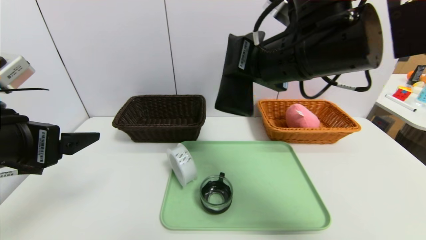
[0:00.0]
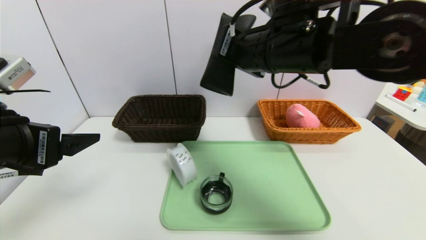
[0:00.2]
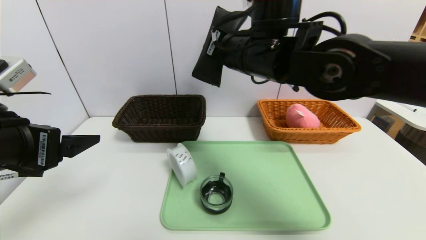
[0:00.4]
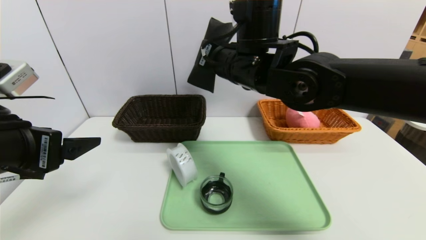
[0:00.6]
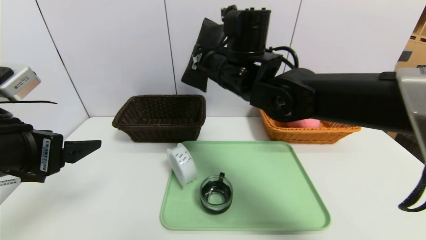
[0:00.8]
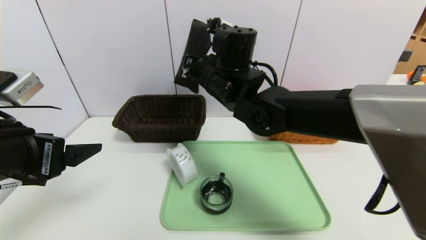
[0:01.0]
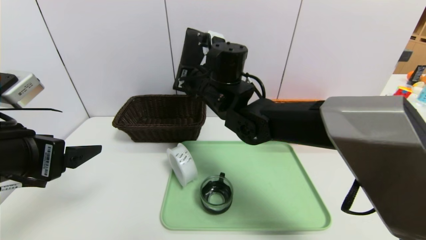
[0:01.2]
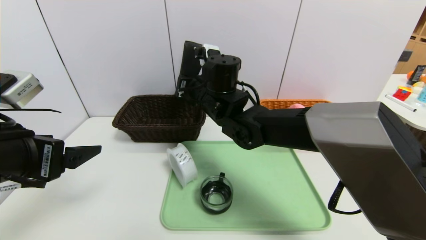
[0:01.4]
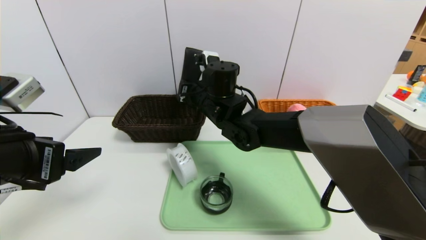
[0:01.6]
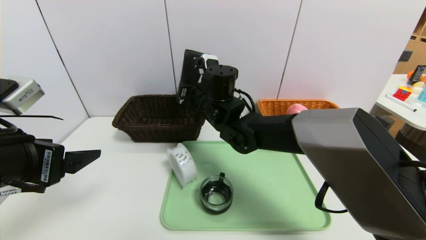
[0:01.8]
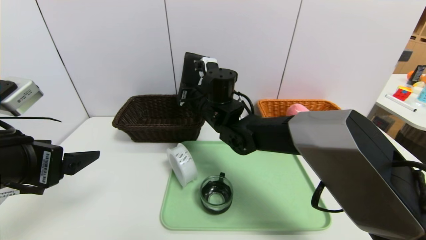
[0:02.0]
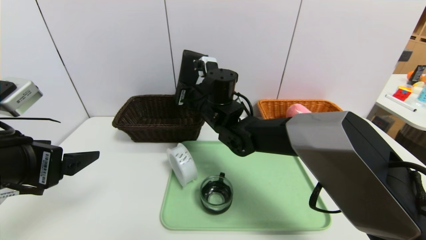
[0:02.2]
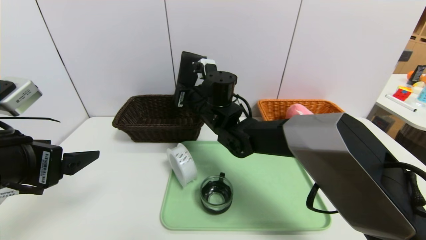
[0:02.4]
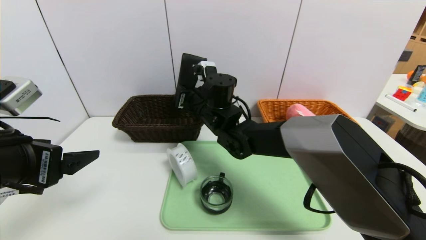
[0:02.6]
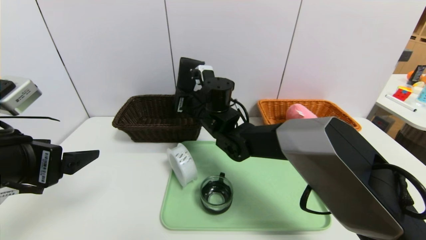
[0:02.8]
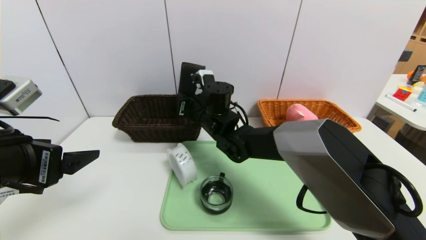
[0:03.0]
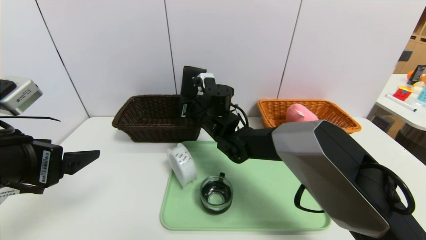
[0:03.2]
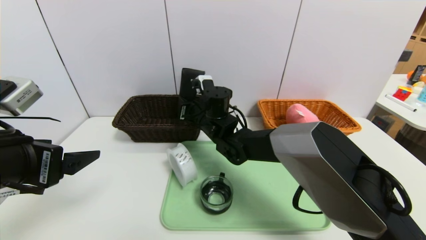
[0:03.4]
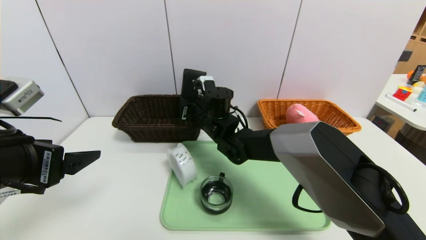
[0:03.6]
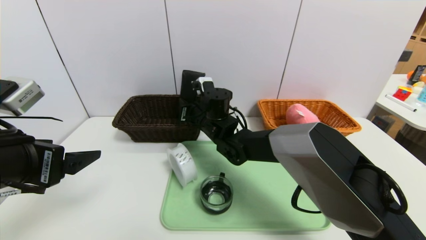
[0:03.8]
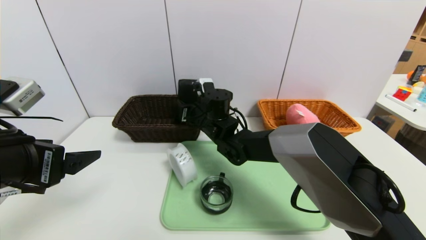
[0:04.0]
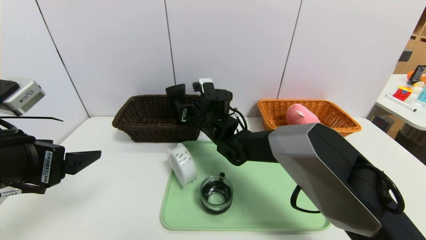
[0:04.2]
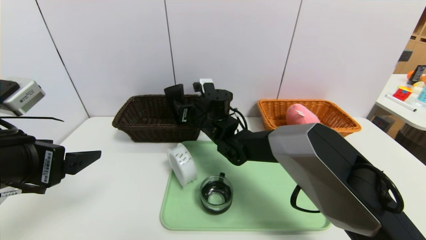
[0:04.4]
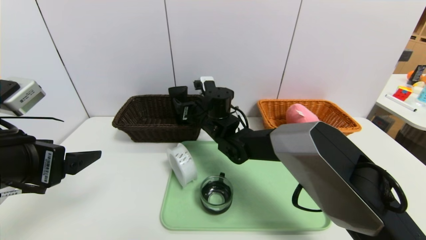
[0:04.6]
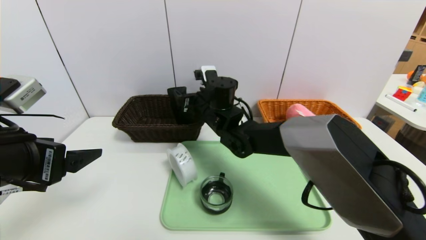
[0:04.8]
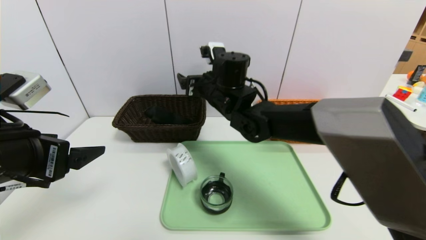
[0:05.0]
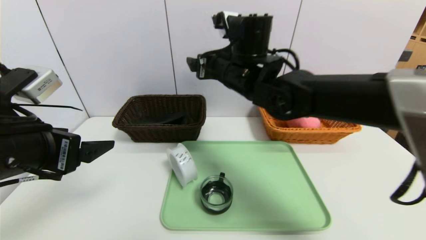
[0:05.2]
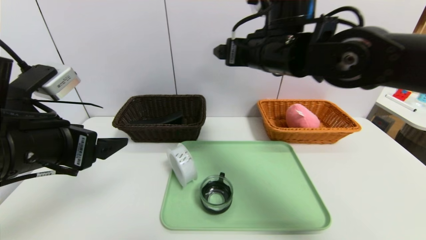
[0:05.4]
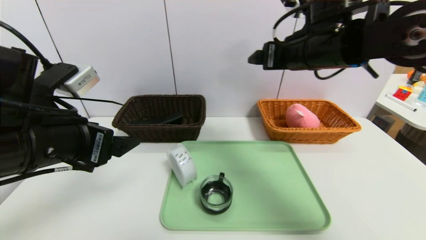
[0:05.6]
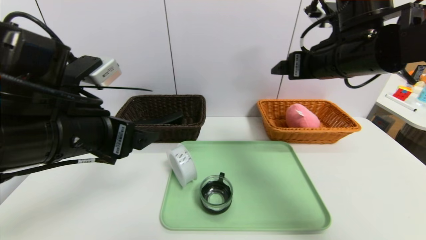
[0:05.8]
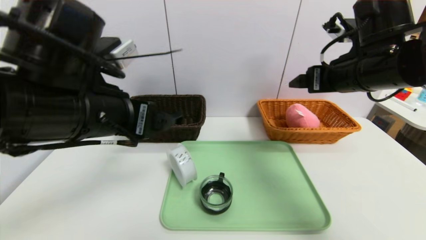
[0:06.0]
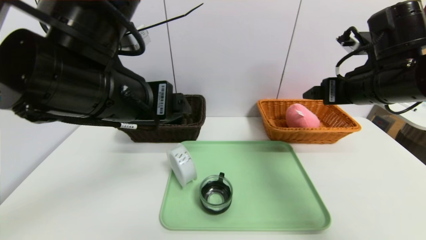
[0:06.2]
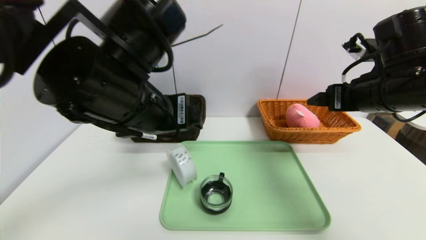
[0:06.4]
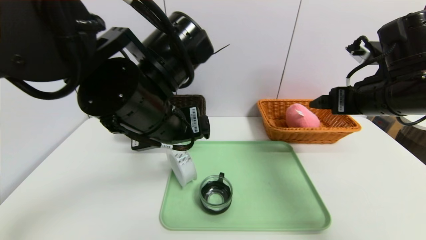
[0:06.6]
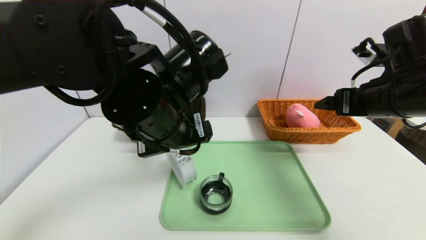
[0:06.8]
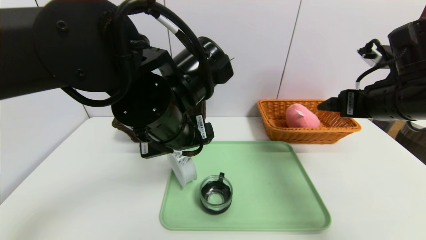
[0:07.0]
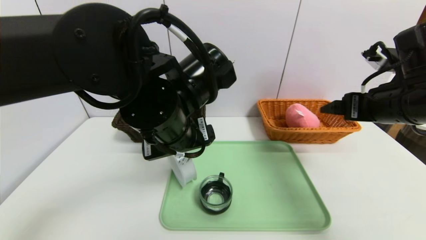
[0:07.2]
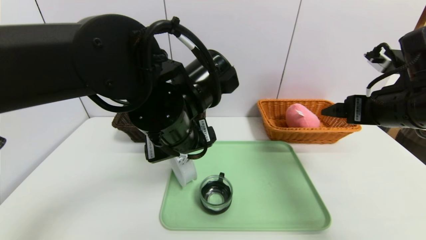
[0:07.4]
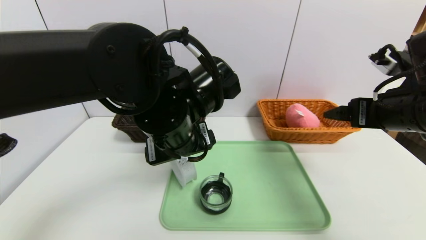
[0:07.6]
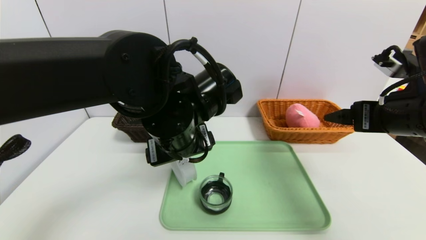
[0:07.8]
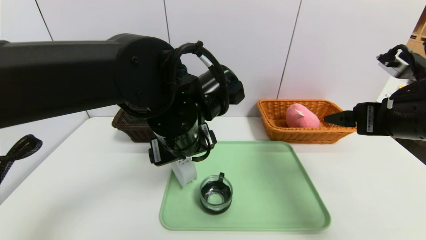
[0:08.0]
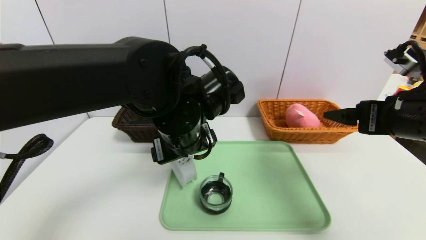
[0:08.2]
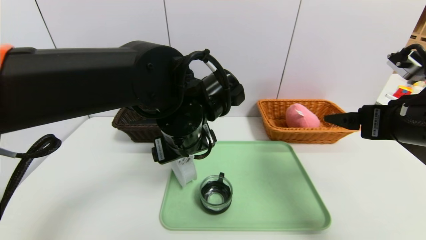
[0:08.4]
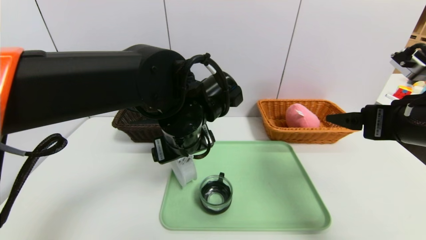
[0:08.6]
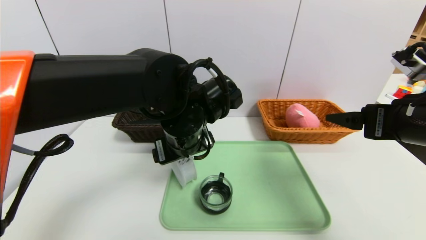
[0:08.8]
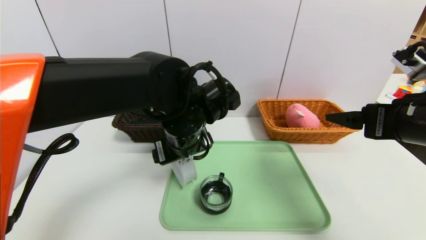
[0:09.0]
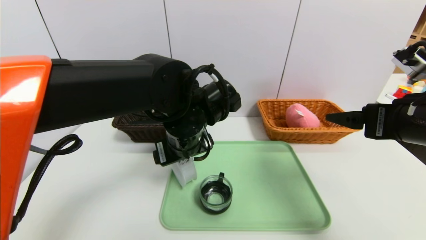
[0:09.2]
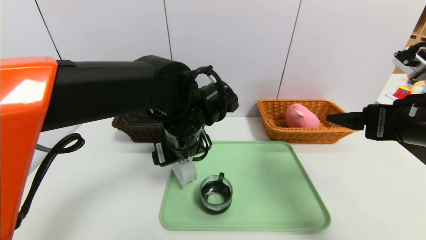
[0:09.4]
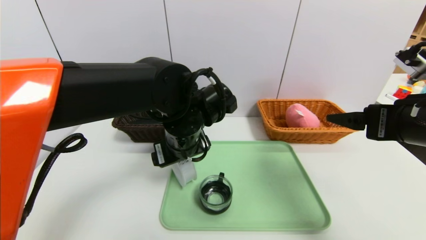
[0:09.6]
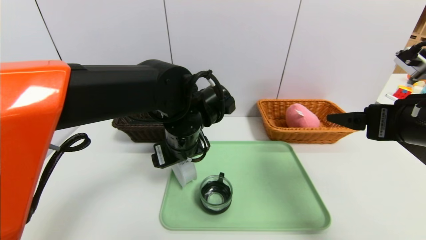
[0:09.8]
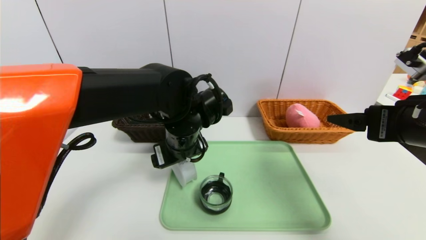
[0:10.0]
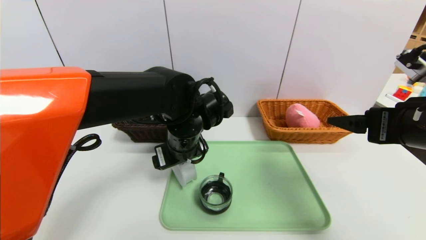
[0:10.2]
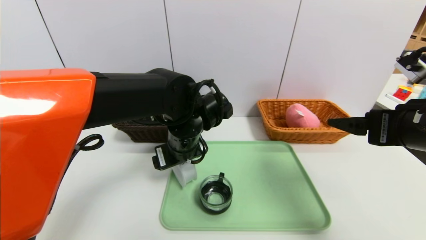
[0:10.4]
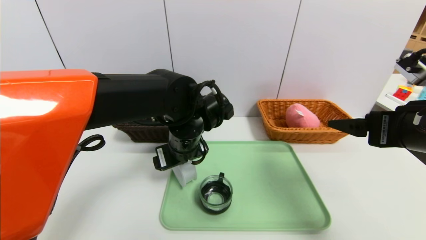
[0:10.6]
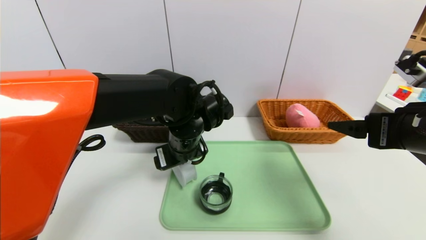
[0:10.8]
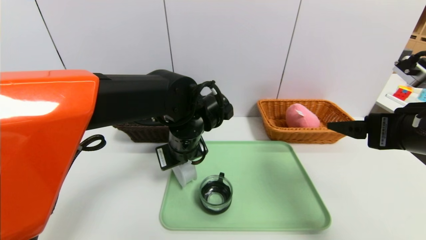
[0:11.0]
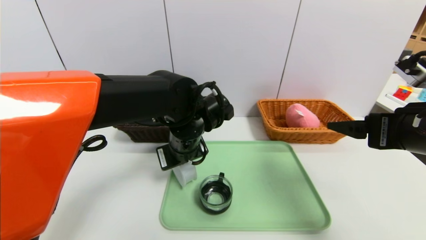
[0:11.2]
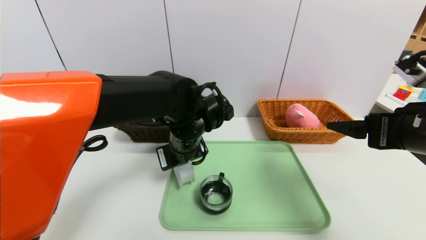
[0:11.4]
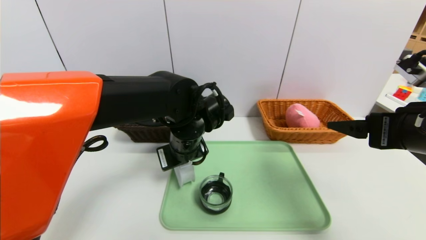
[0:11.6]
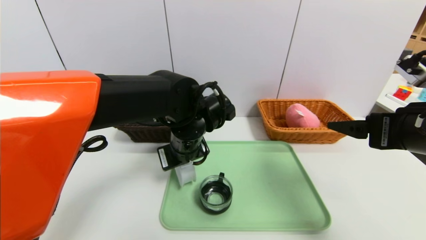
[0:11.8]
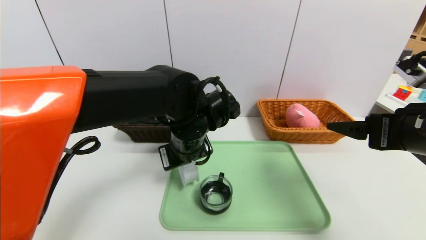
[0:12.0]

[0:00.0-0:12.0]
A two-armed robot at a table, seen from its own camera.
Task of the whole recording: place the food in the right basket with the right gripper, and place the non food items in the left basket with the left gripper.
0:00.0 to 0:01.6: The right gripper is displaced downward, forward and to the left by about 20 cm.
0:01.6 to 0:03.0: The right gripper changes place by some 5 cm.
0:03.0 to 0:04.4: The right gripper opens up.
0:04.4 to 0:06.0: The left gripper travels to the right and forward by about 10 cm; the right gripper moves to the right, upward and backward, about 30 cm.
0:06.0 to 0:07.6: The left gripper shifts about 10 cm to the right and downward, while the right gripper heads backward, covering approximately 5 cm.
0:09.0 to 0:10.4: The grippers stay close to where they were, moving slightly.
0:10.4 to 0:12.0: The left gripper closes.

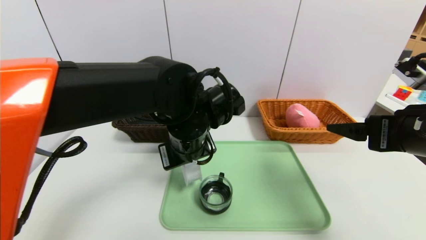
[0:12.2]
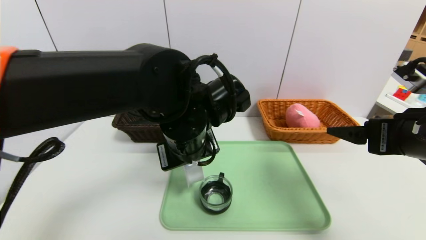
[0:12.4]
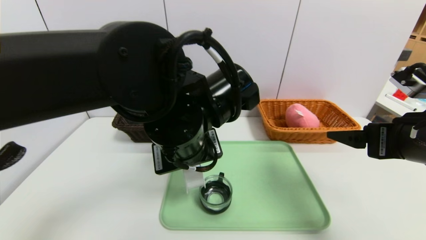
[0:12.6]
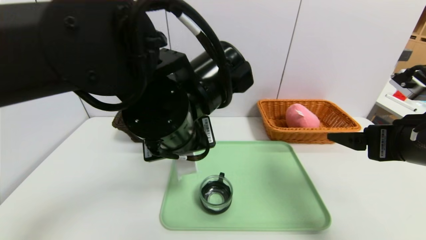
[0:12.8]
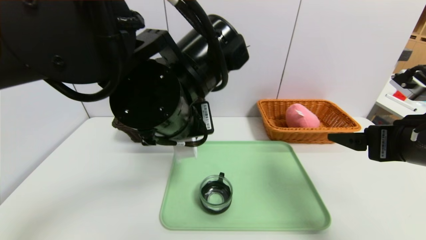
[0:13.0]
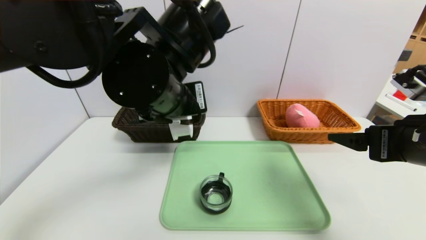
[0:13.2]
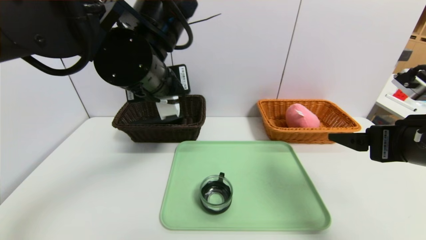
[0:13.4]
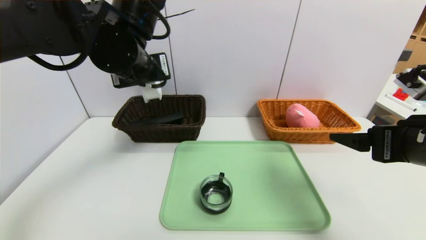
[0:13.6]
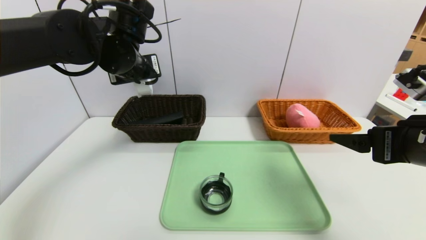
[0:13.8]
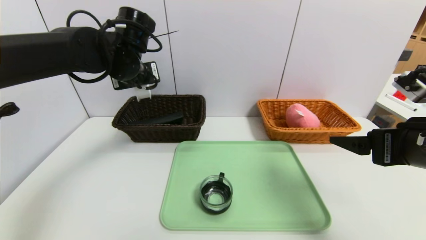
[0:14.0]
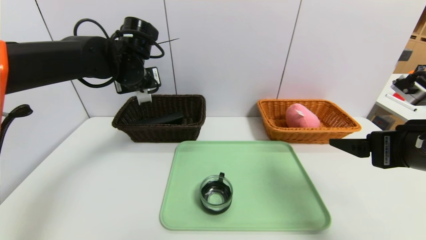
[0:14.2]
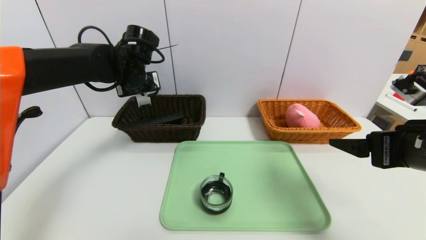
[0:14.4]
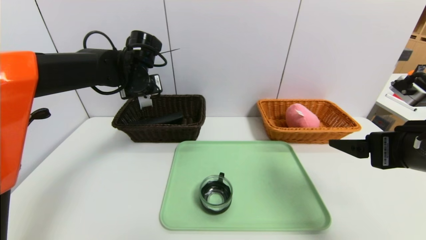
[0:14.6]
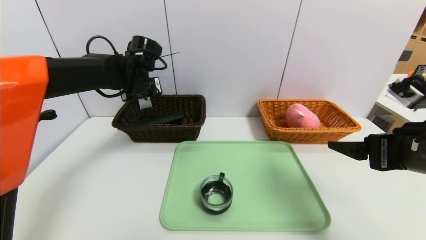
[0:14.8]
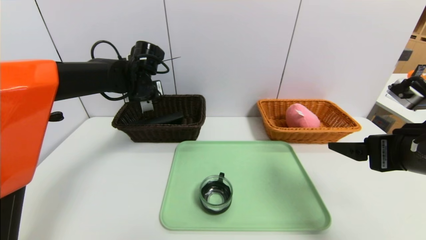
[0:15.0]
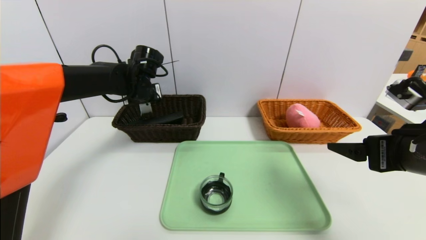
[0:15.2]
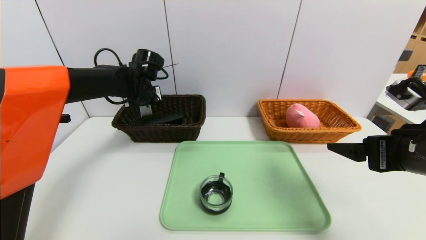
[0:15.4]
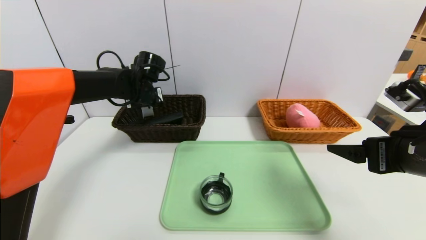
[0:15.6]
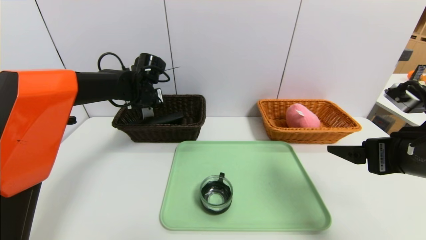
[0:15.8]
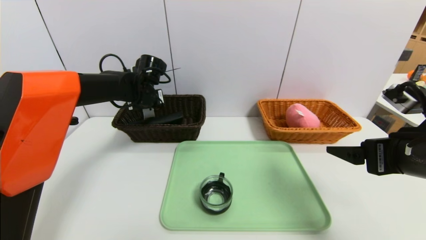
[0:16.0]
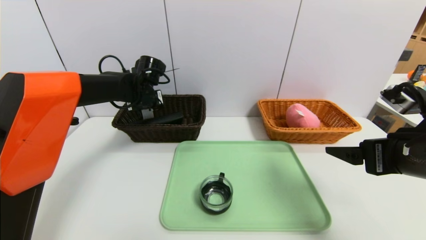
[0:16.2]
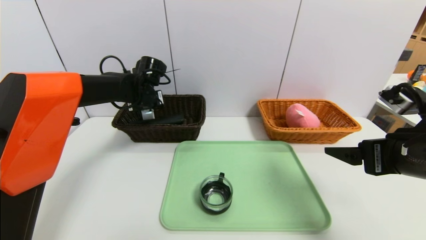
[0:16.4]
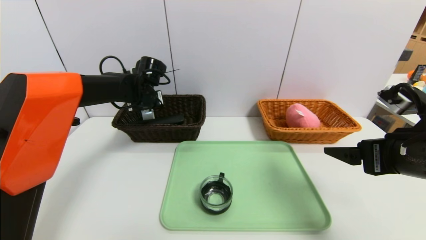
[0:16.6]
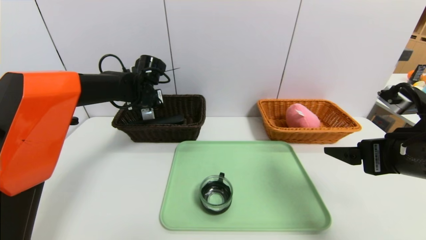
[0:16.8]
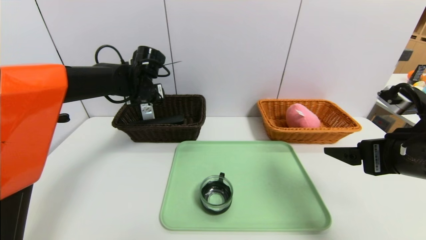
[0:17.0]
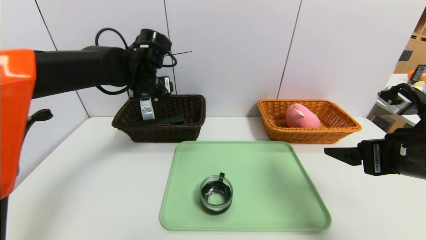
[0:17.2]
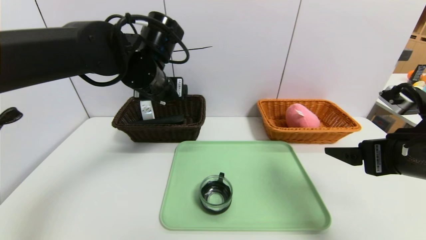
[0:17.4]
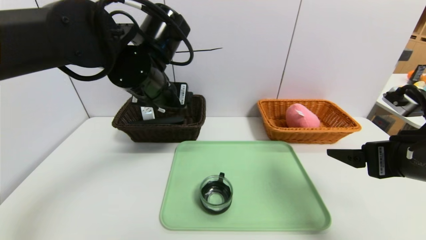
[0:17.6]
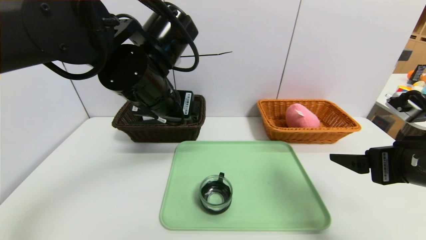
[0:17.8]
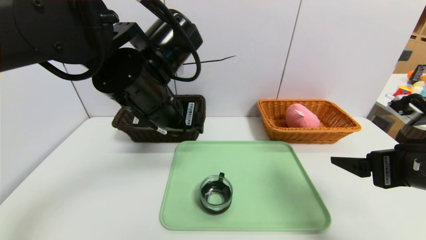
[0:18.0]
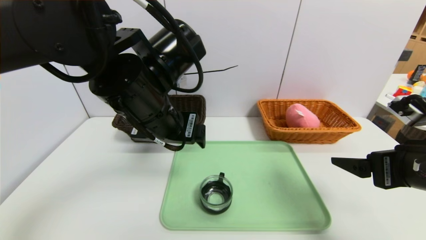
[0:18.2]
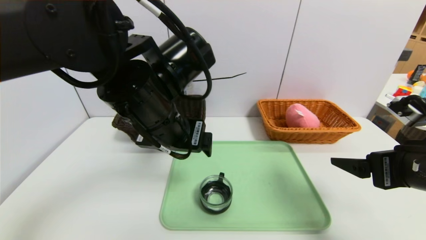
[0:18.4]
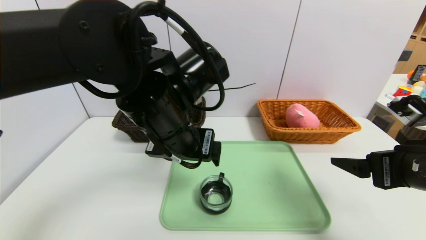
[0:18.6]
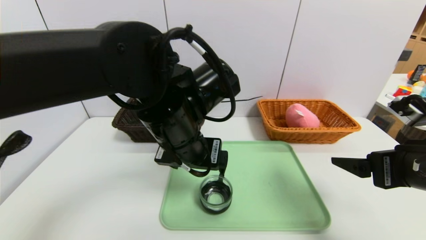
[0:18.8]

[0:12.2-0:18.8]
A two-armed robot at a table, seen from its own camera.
Task of the whole recording: place the food in the right basket with the right gripper, and place the non food items in the left basket with the left gripper.
Step, 0:12.2 to 0:17.6: Grasp the tape and put it in the left basket.
0:12.2 to 0:13.8: The left gripper is displaced to the left, upward and forward by roughly 15 cm.
0:13.8 to 0:15.4: The left gripper moves downward and forward, some 15 cm.
0:15.4 to 0:17.2: The left gripper travels backward by roughly 5 cm, and opens up.
0:17.2 to 0:18.8: The left gripper travels backward and to the right by roughly 20 cm.
